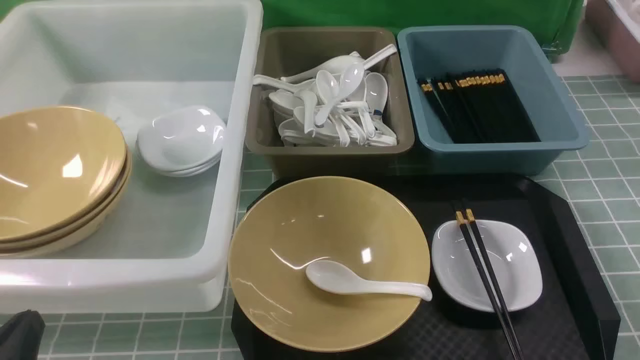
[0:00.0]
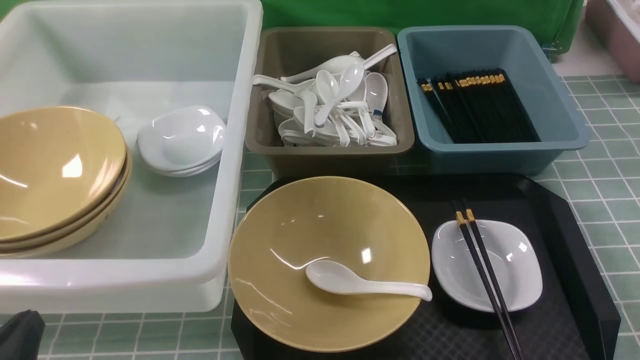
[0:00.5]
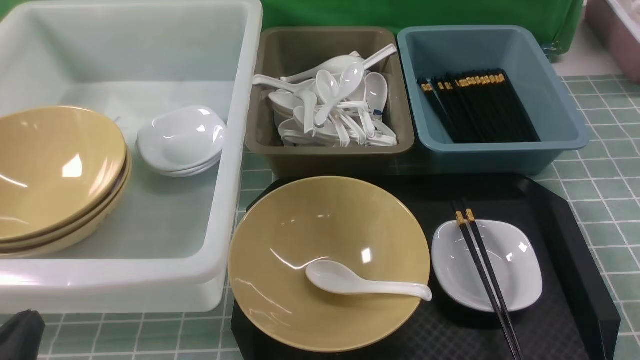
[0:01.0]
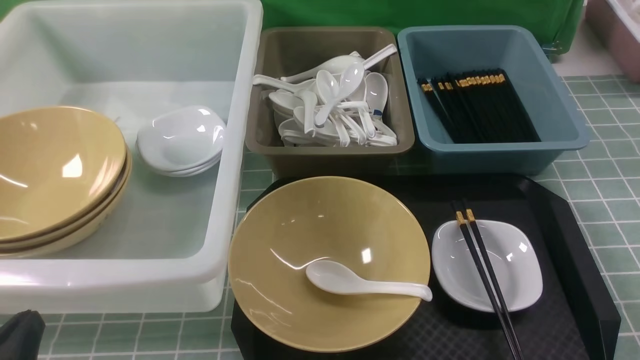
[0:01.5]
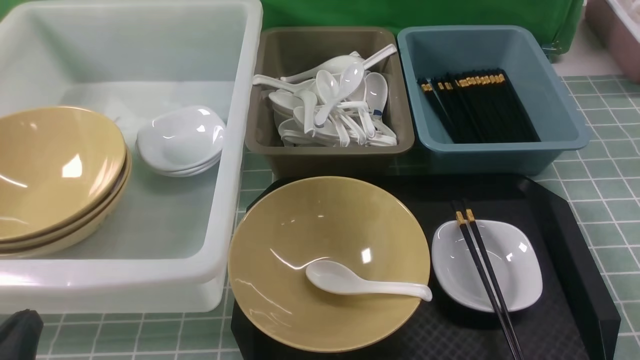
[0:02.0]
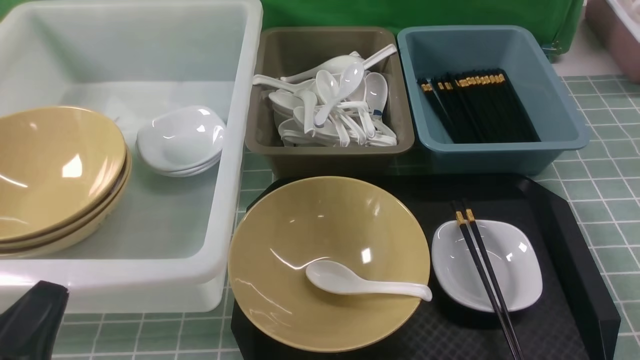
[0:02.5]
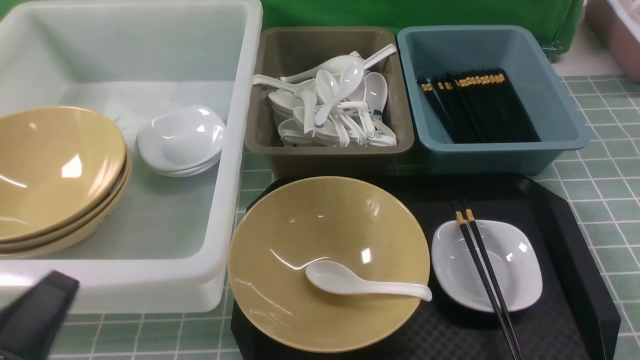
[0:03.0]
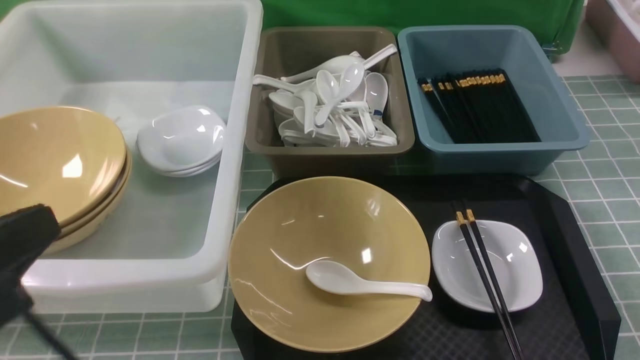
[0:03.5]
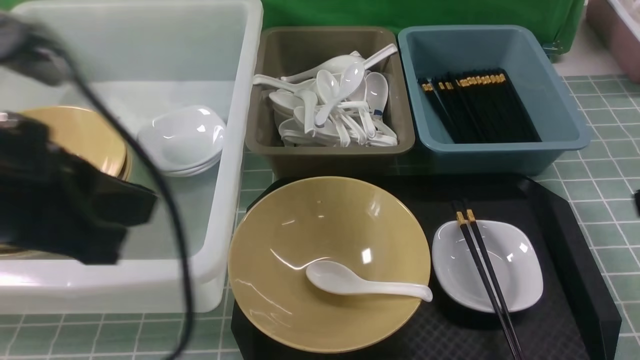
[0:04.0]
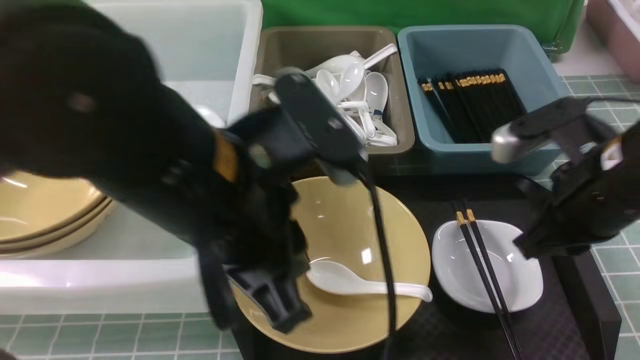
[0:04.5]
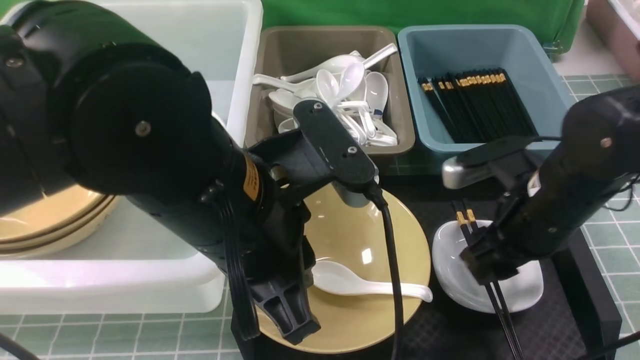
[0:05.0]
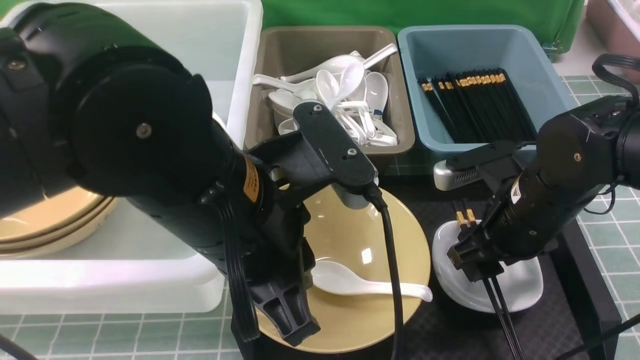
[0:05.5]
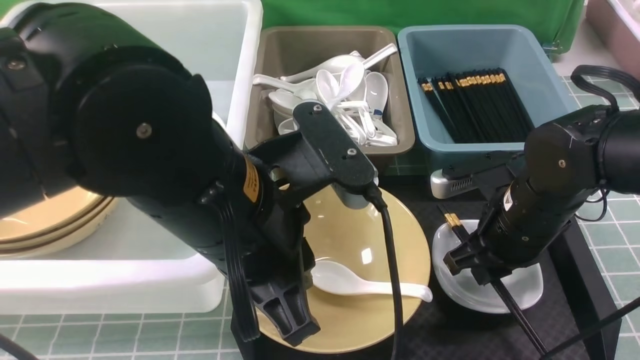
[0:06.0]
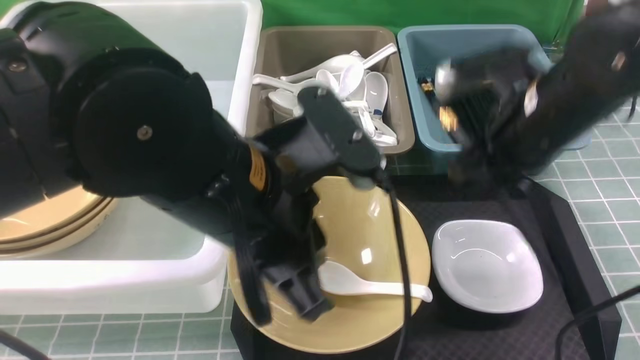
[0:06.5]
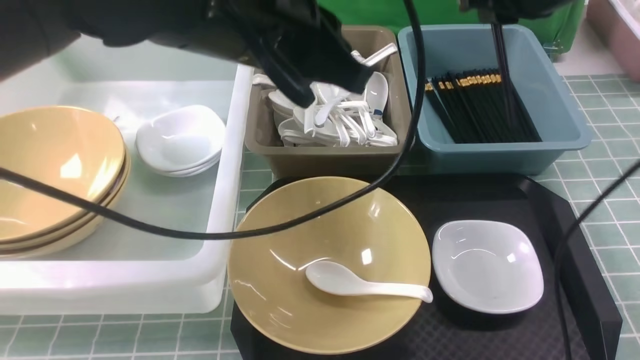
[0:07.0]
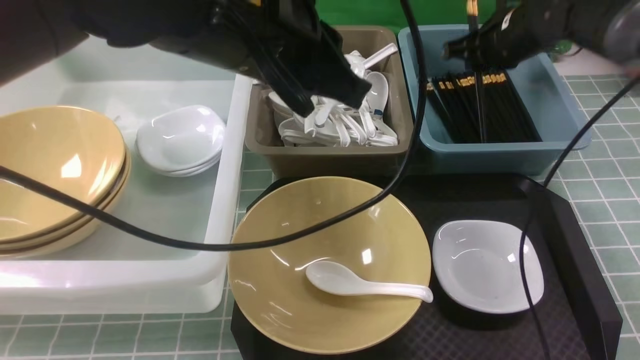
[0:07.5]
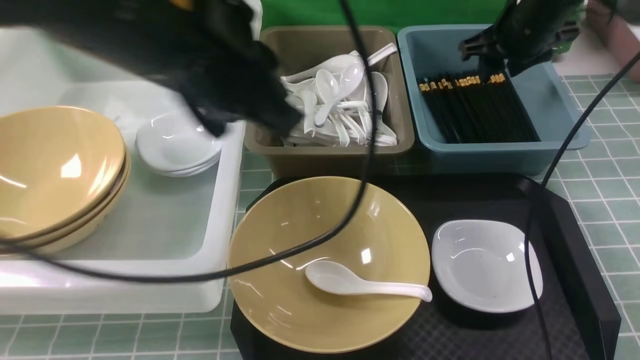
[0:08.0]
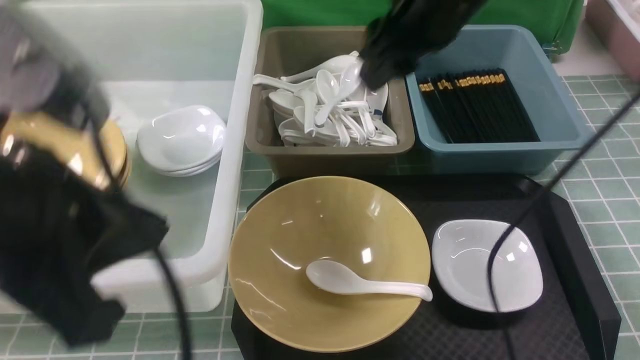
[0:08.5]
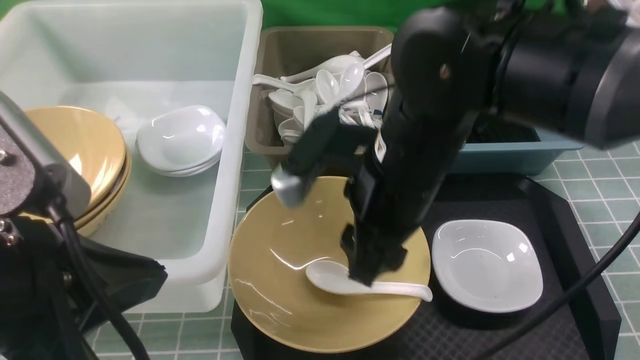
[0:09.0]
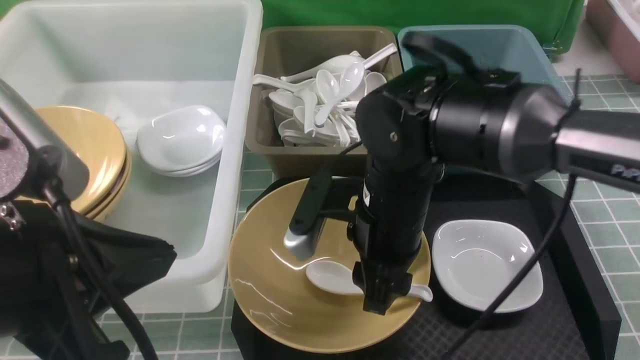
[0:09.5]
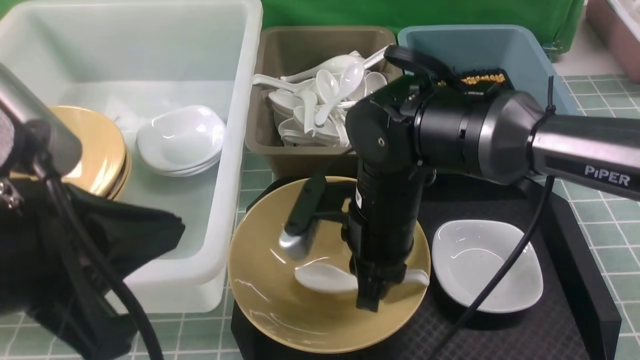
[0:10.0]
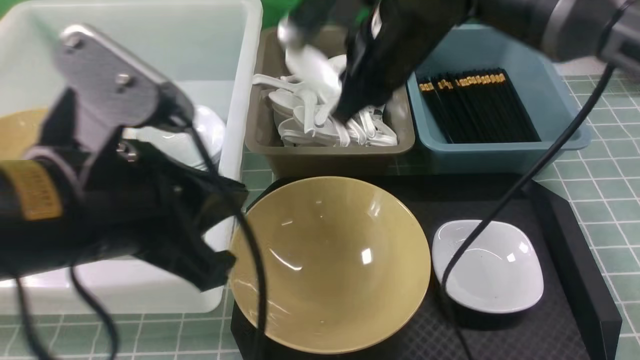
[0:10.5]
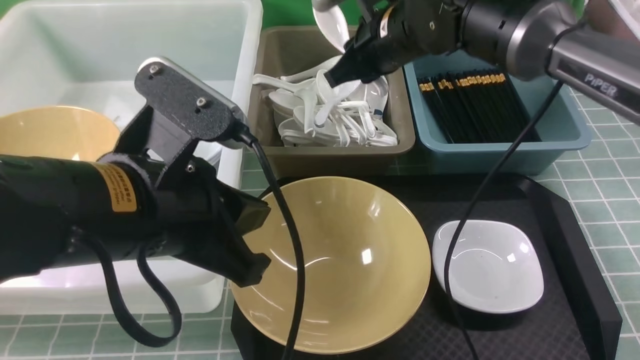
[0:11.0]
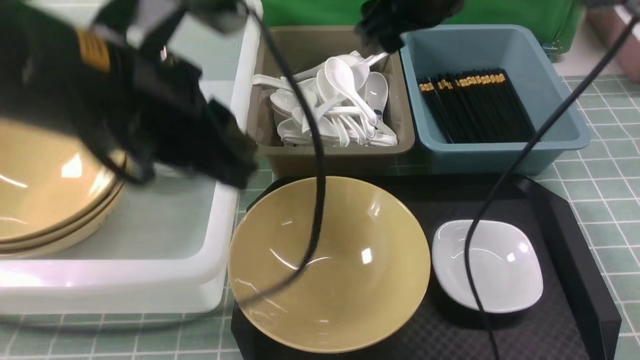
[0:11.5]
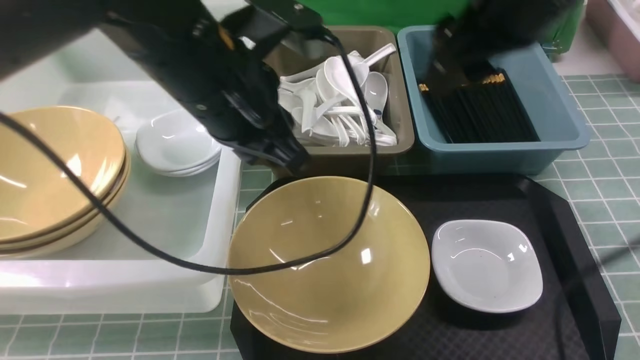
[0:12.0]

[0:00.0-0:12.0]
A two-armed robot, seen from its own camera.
Task of the whole recording: on blue table put chopsticks spoon bowls plates into blue grey white boxes.
Step, 0:00.0 to 0:06.0: use the right arm to grab the chopsticks.
Step, 0:06.5 to 0:08.0: use the right arm to put the chopsticks into the small storage box on the right.
Step, 0:08.5 to 0:10.0: use the right arm to grab the soup spoon in the middle.
Step, 0:10.5 to 0:11.5: use the right arm to put the soup spoon into the small storage box in the middle.
0:02.0 to 0:04.0: The left gripper shifts approximately 20 cm upward and forward.
0:04.0 to 0:06.0: The left gripper heads to the right, covering approximately 10 cm. The right gripper shifts about 20 cm downward, forward and to the left, and opens, then closes once more.
0:06.0 to 0:08.0: The left gripper is displaced upward by roughly 10 cm. Meanwhile the right gripper goes some 20 cm forward and upward, and opens up.
0:08.0 to 0:10.0: The right gripper moves backward and to the left, about 25 cm, and closes up; the left gripper moves backward, to the left and downward, about 15 cm.
0:10.0 to 0:12.0: The right gripper shifts some 20 cm upward and to the right, and opens. Meanwhile the left gripper moves forward and to the right, some 20 cm.

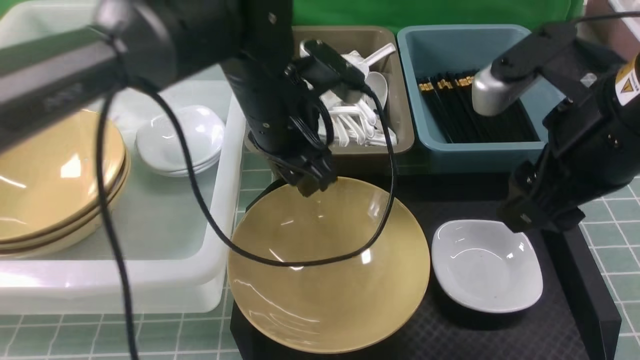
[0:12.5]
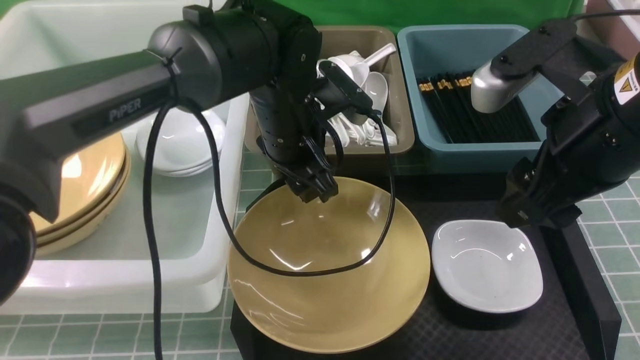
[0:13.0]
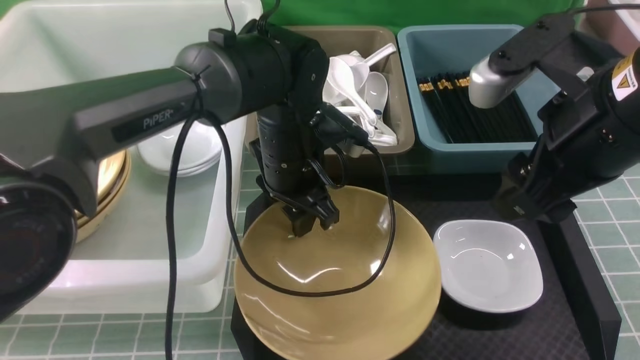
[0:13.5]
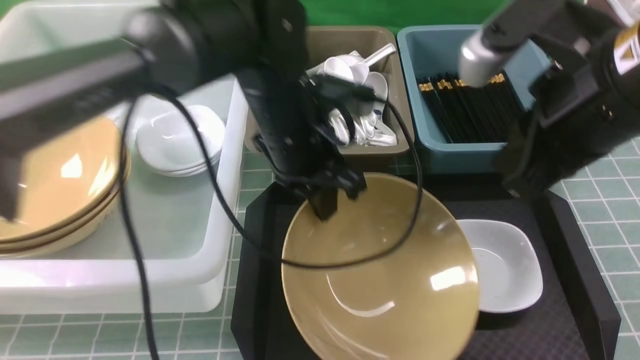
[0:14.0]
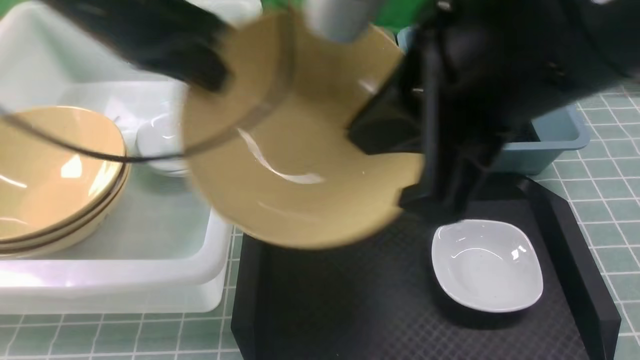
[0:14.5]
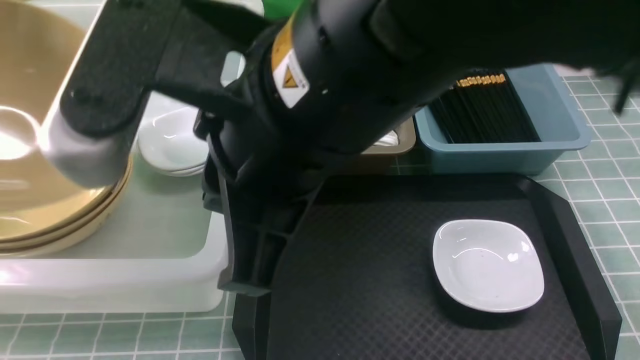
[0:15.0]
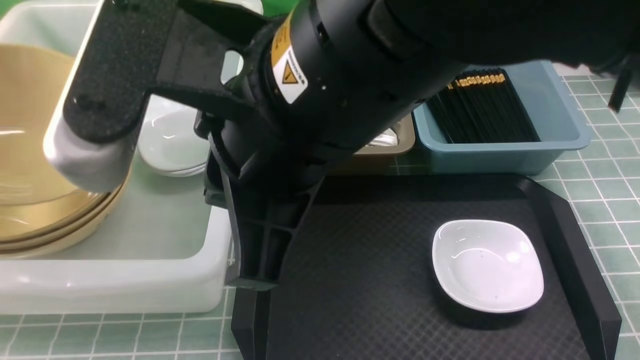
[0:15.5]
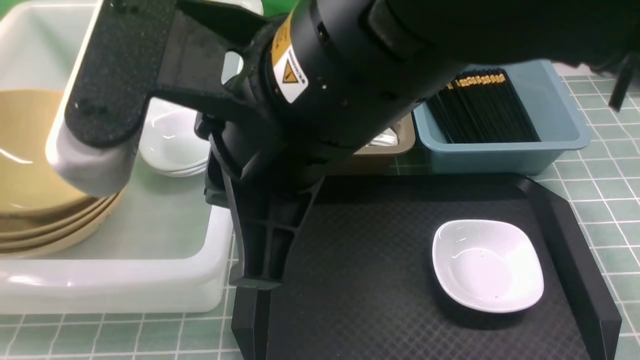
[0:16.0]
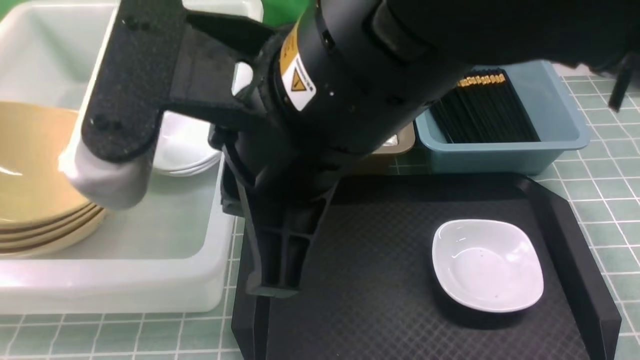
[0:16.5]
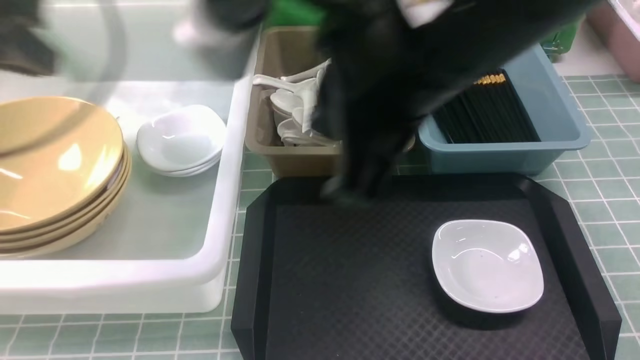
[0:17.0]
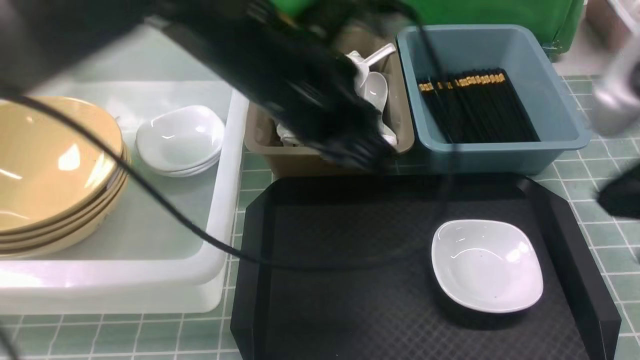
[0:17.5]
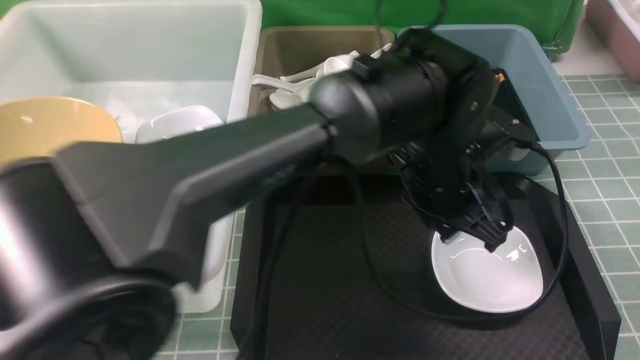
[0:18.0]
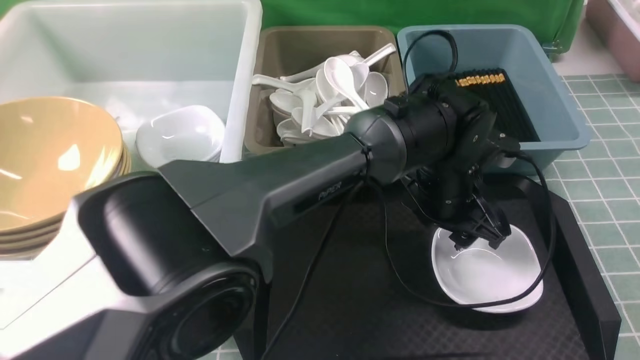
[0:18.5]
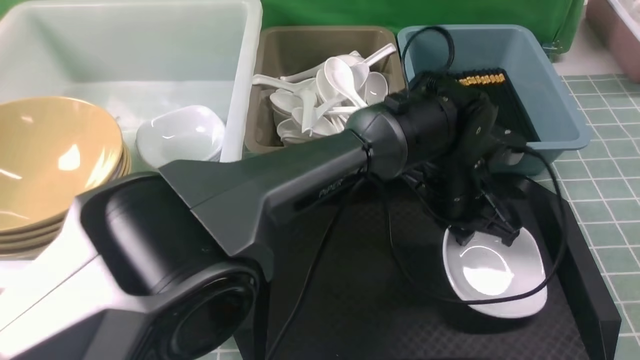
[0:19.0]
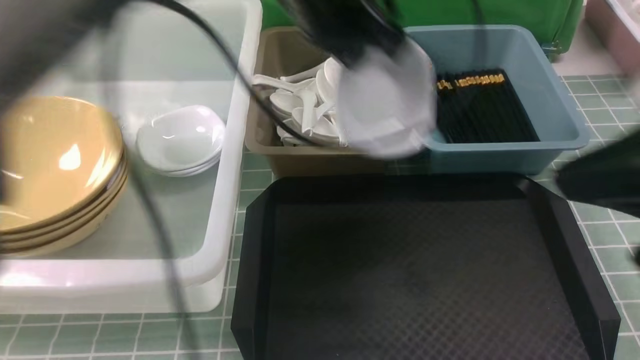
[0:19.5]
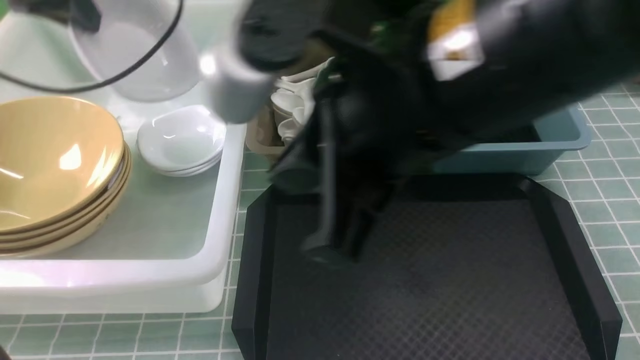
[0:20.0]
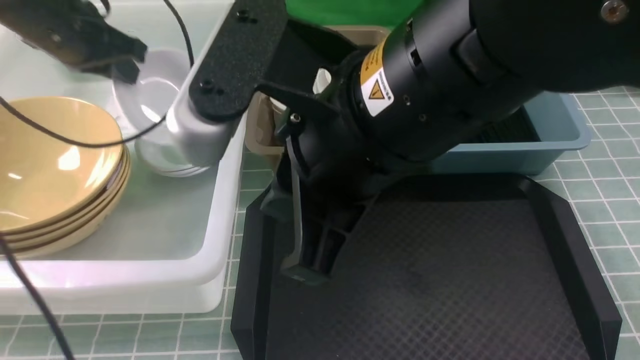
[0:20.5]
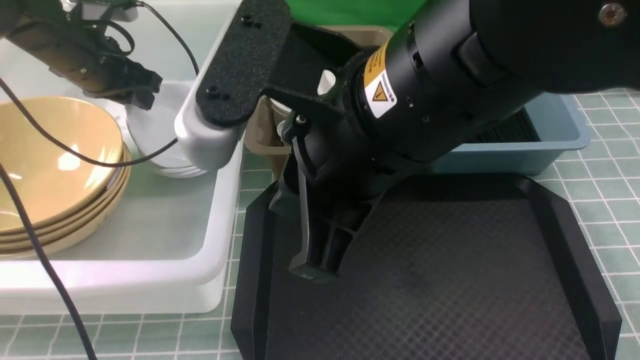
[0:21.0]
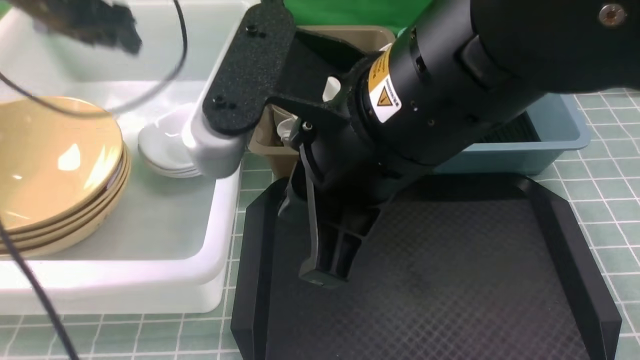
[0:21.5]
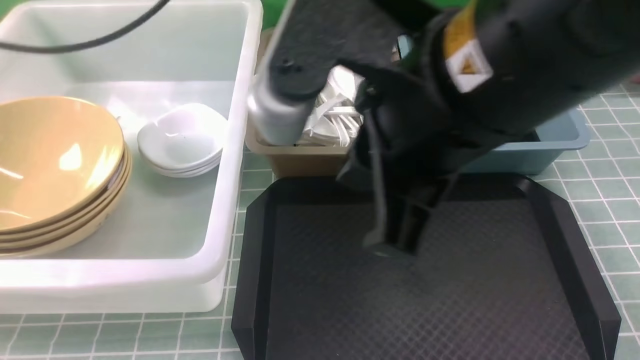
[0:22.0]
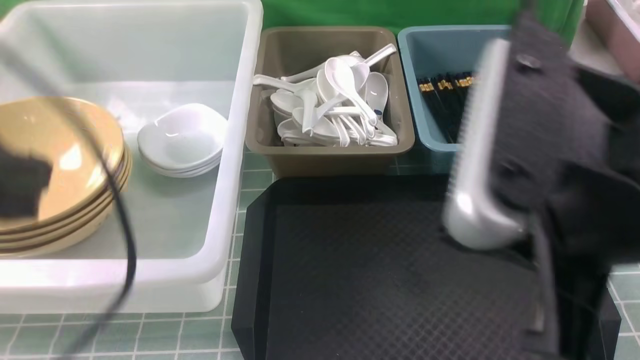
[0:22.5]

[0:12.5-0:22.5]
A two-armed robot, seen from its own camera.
Task of the whole recording: on blue table put chopsticks spoon bowls plates into blue grey white boxes.
Step, 0:14.0 to 0:16.5: use the left arm to put the noodle bowl into the large storage box on the left.
Step, 0:17.0 to 0:19.0: use the left arm to grab the plate.
Step, 0:19.5 to 0:21.5: use the left arm to put the plate into the large storage box on the left.
0:12.5 to 0:14.5: The right gripper is displaced to the left, upward and backward by about 15 cm, and closes; the left gripper travels to the left and upward by about 20 cm, and closes up.
0:14.5 to 0:16.5: The right gripper goes about 10 cm to the left. Meanwhile the left gripper shifts roughly 20 cm to the left, and opens up.
0:16.5 to 0:18.5: The left gripper travels to the right by approximately 50 cm, and closes and opens again. Meanwhile the right gripper goes some 25 cm to the right.
0:18.5 to 0:20.5: The right gripper heads to the left and forward, covering about 25 cm. The left gripper moves to the left, some 40 cm, and closes up.
0:20.5 to 0:22.5: The right gripper is displaced to the right and backward by roughly 15 cm; the left gripper heads backward, covering roughly 30 cm, and opens and closes again.
